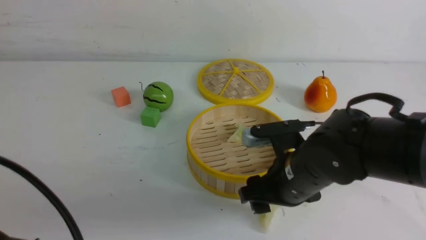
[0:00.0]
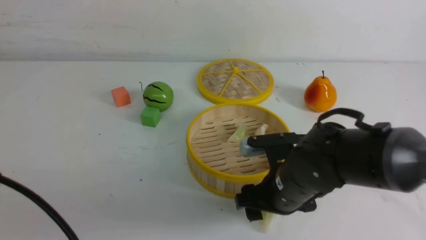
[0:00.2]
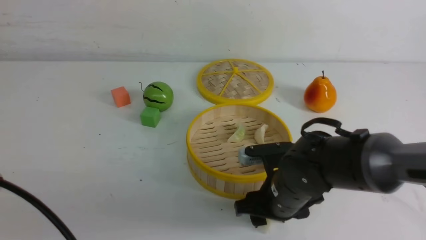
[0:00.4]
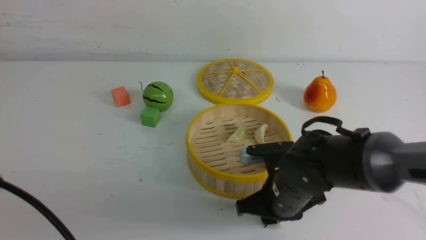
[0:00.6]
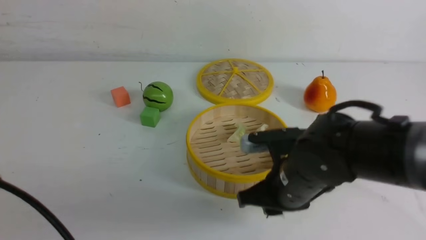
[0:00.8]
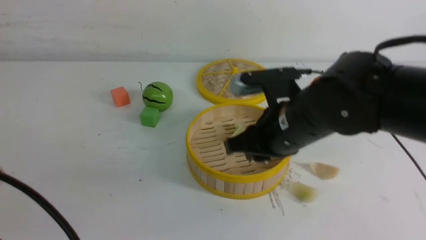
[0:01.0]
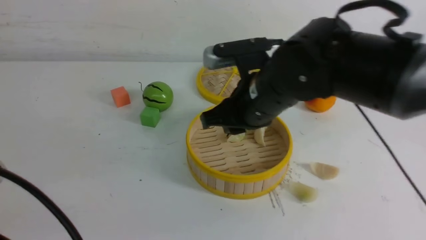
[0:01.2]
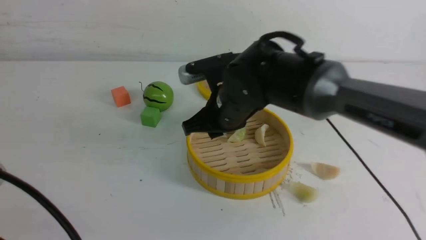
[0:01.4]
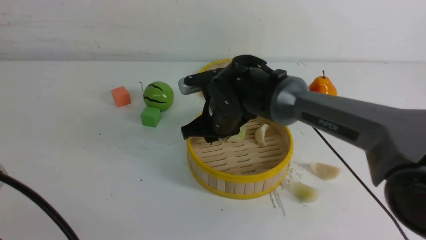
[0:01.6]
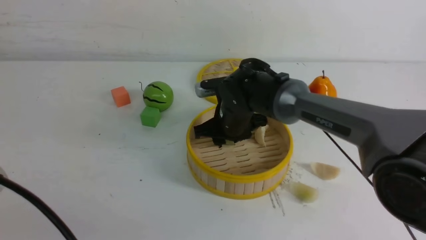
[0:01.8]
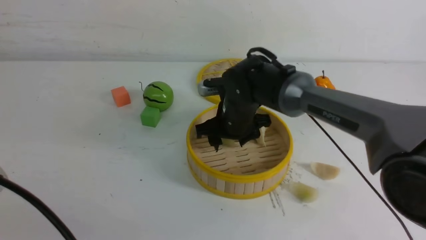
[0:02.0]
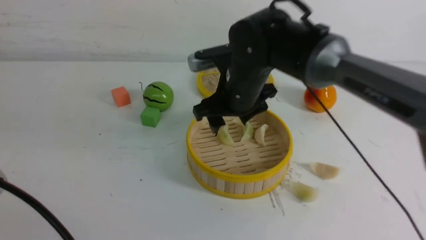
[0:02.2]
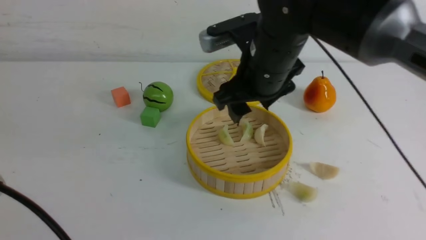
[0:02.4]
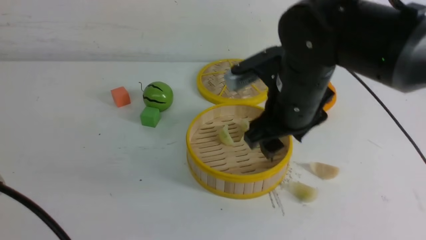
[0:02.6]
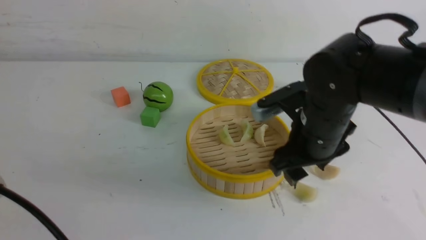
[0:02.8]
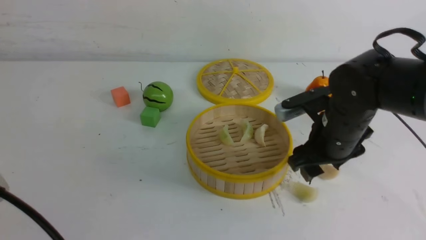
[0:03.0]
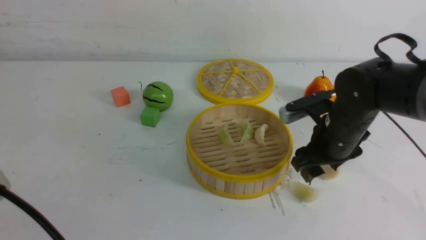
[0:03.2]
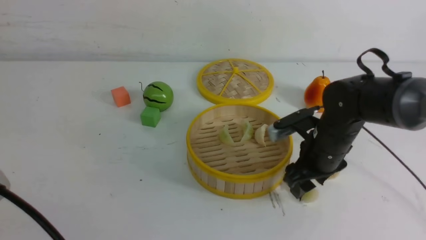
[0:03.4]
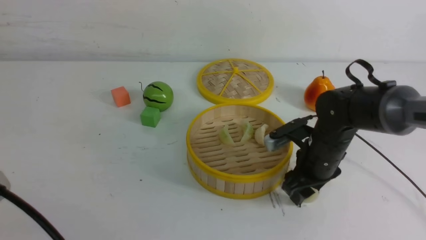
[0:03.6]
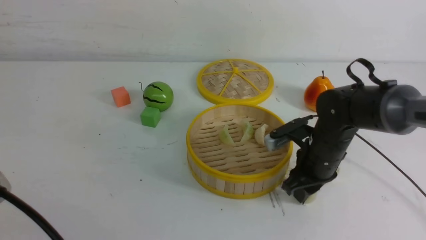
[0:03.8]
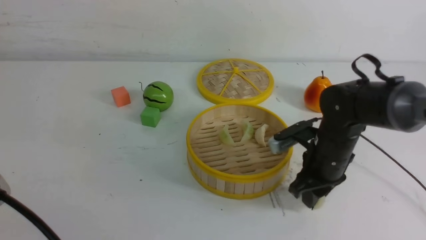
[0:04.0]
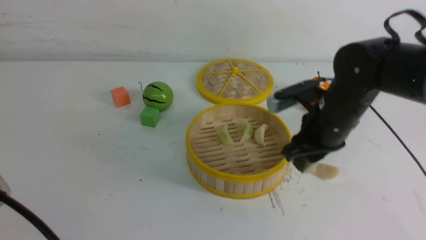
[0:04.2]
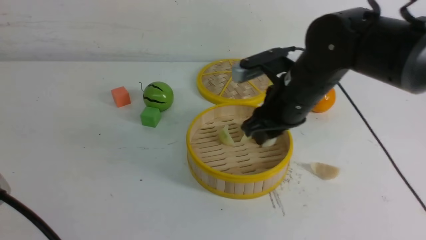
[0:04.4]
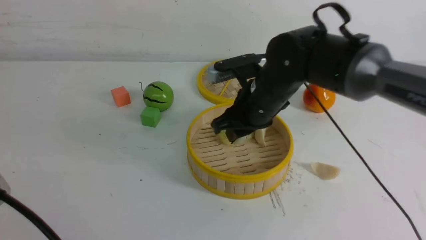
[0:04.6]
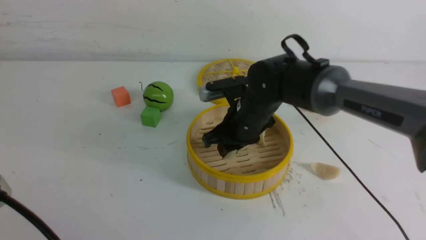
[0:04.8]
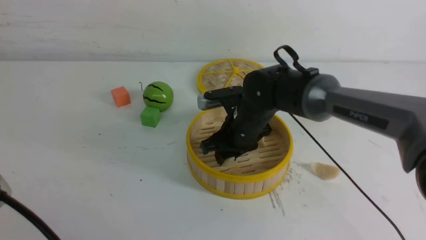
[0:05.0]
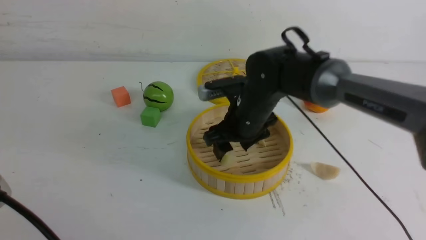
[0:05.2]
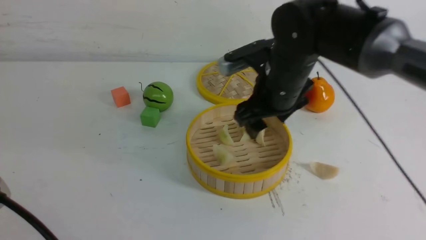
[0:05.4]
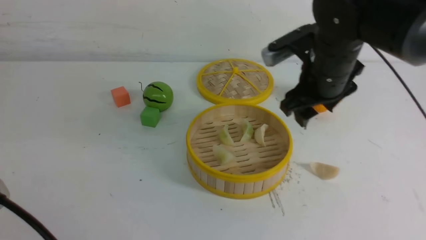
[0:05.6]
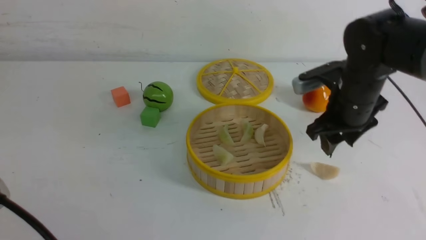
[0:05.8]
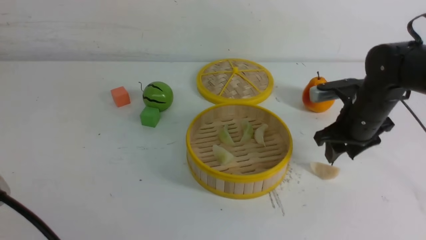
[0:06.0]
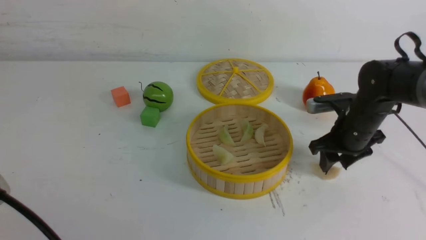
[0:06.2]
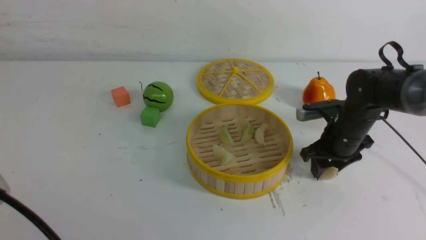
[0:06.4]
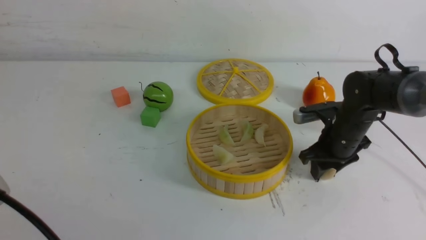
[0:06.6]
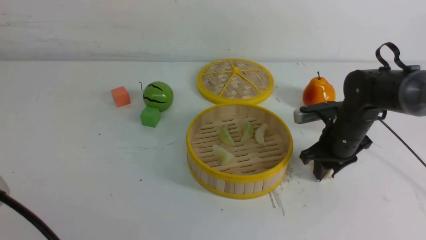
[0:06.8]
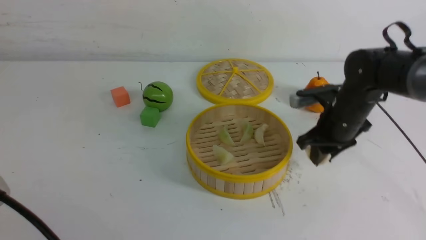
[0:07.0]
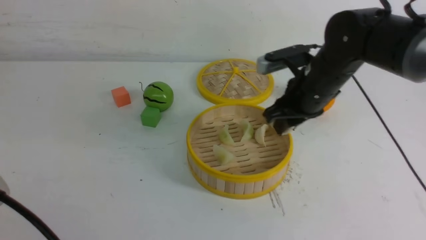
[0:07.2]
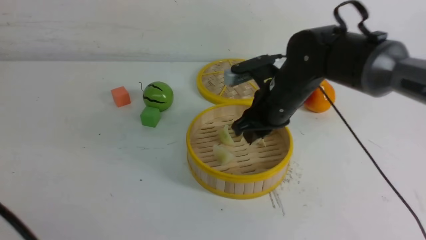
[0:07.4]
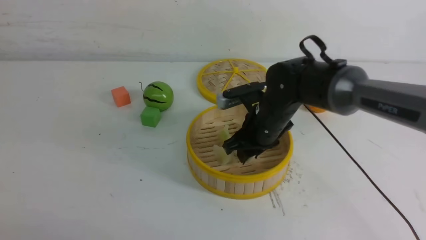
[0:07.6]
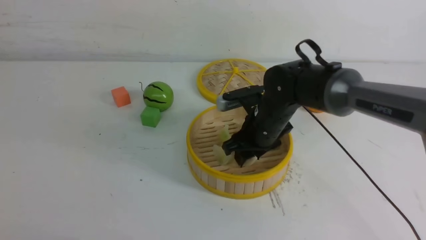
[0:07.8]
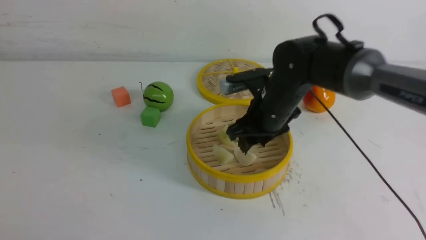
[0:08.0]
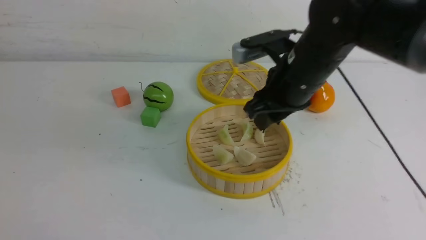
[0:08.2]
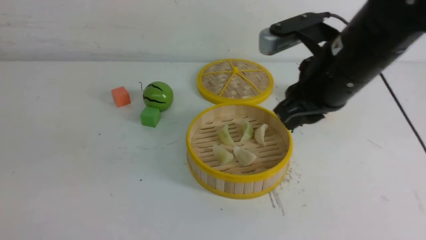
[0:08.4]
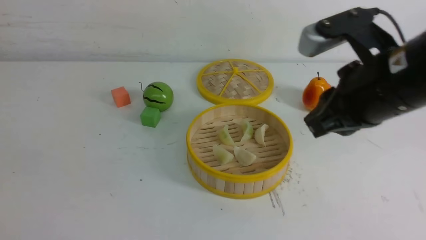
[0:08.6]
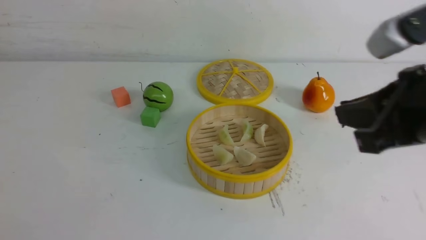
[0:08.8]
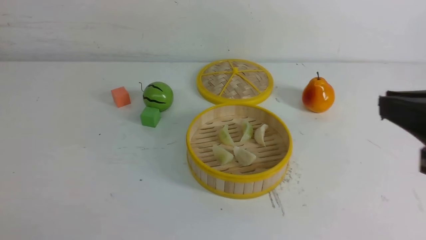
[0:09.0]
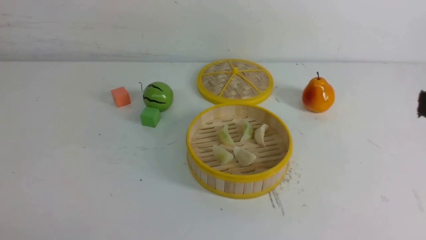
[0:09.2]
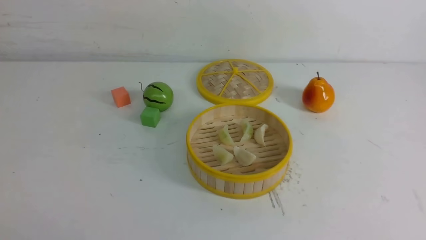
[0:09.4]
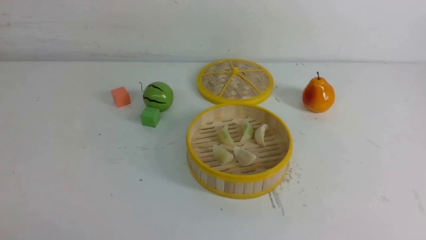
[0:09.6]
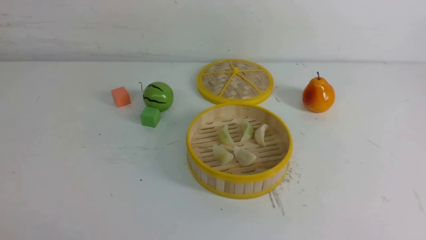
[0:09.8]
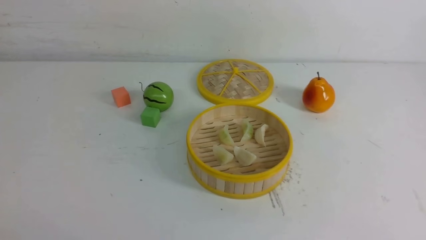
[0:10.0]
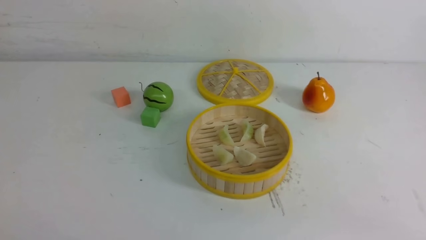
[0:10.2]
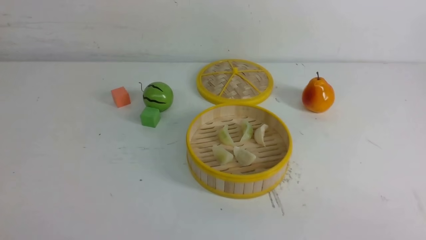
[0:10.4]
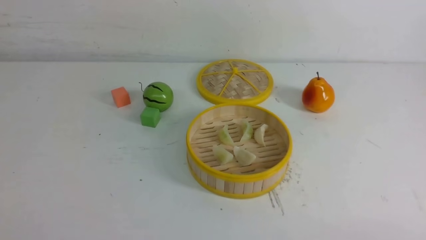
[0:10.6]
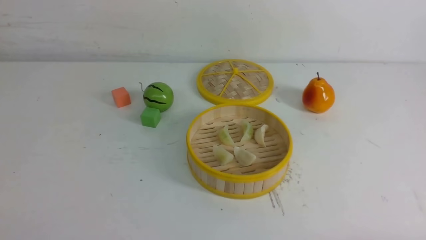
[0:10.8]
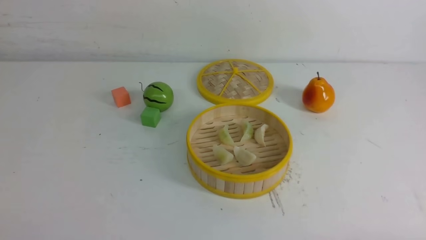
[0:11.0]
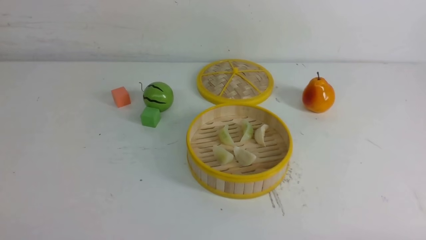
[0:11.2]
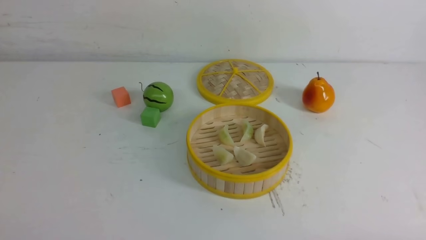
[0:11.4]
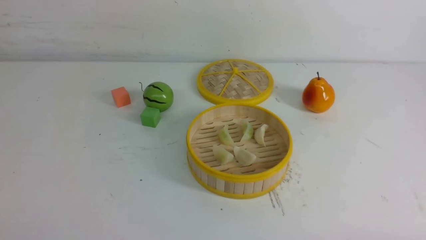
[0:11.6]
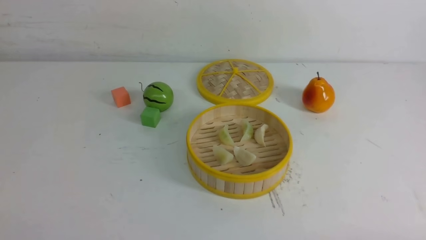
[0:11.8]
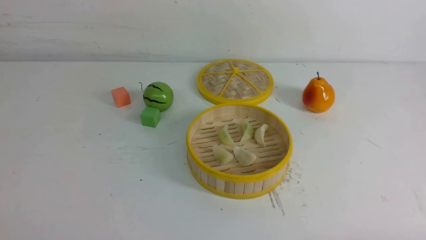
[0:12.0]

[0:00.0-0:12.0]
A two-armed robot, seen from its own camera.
Task of the whole recording: put the dumplings into the steamer on the white table.
Step, 0:00.8 to 0:02.0: use the right arm to put the dumpling into the steamer.
Step, 0:02.2 to 0:04.0: use the right arm to grab a dumpling.
Step, 0:04.2 to 0:05.2: use the right arm to put the dumpling into the steamer.
Step, 0:05.4 to 0:06.8: use the right arm to grab a dumpling.
Step, 0:07.0 to 0:07.8: use the right arm to put the dumpling into the steamer.
0:00.0 to 0:01.6: The right gripper moves forward and to the left, roughly 15 cm, and closes its fingers.
0:01.6 to 0:03.0: The right gripper goes about 15 cm to the right and backward, and opens.
0:03.0 to 0:04.4: The right gripper goes roughly 5 cm to the left, goes downward and returns, roughly 5 cm each way, and closes its fingers.
0:04.4 to 0:06.0: The right gripper travels to the right and downward by approximately 15 cm.
0:06.0 to 0:07.6: The left gripper ends up some 5 cm from where it was. The right gripper travels to the left by some 15 cm.
0:07.6 to 0:09.0: The left gripper goes about 10 cm to the left and backward, while the right gripper travels backward, upward and to the right by some 35 cm, and closes.
0:09.0 to 0:10.4: The right gripper moves downward, backward and to the right, roughly 15 cm.

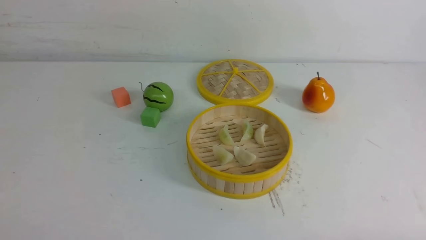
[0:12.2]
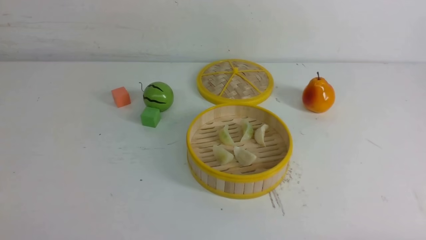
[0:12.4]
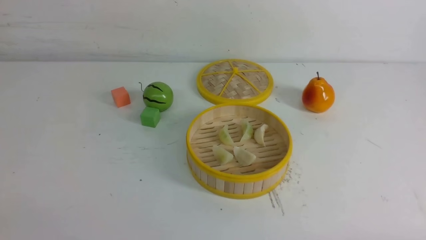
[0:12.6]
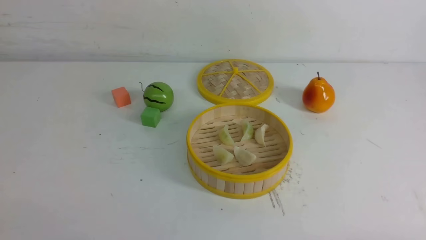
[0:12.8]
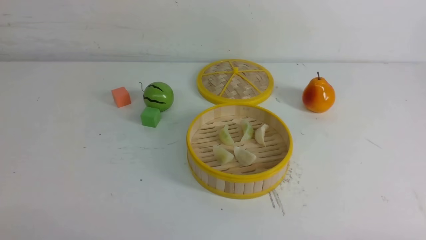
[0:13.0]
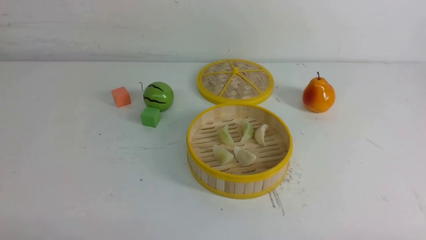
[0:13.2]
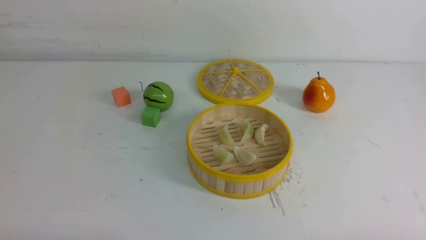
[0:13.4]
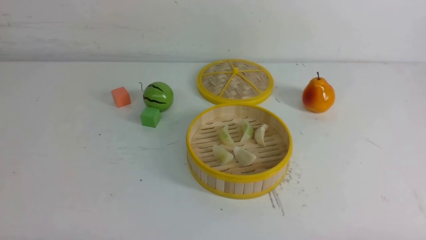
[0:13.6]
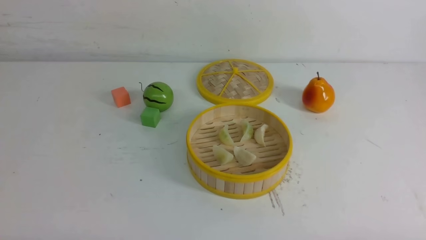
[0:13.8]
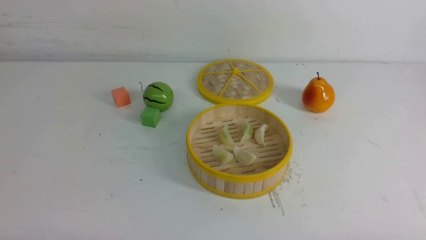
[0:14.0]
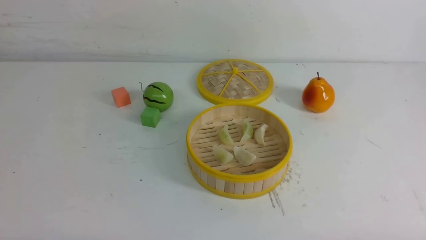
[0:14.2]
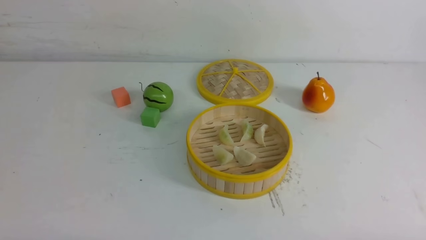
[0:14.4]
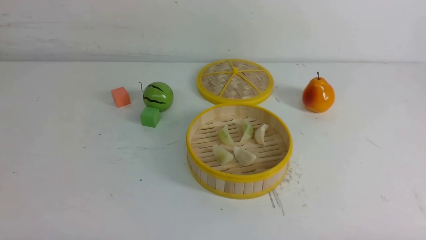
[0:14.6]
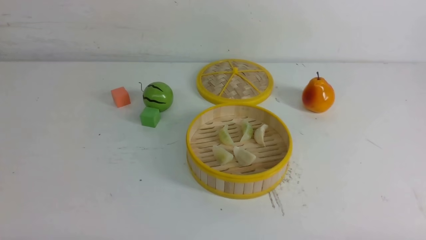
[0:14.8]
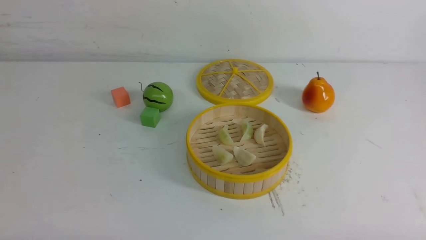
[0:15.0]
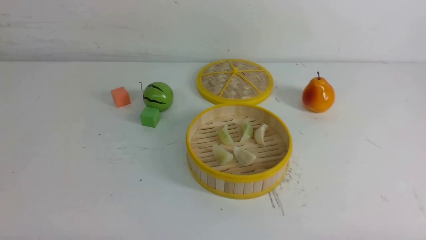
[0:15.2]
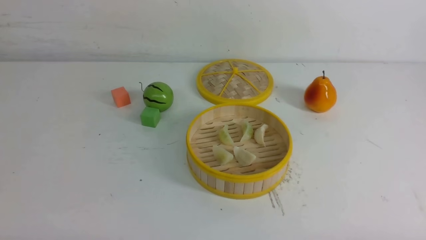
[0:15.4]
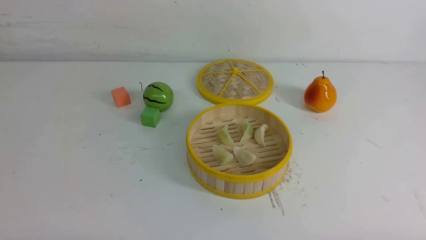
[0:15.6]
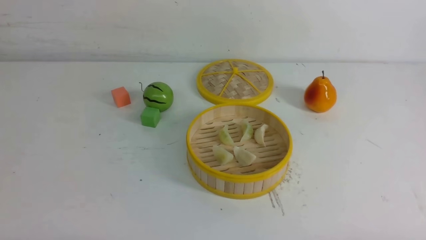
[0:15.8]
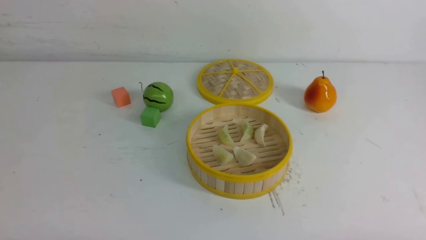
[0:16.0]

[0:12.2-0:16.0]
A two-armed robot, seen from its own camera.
Task of the whole recording: put the dumplings into the steamer on the white table.
0:14.8 to 0:16.0: The two grippers keep their place.
